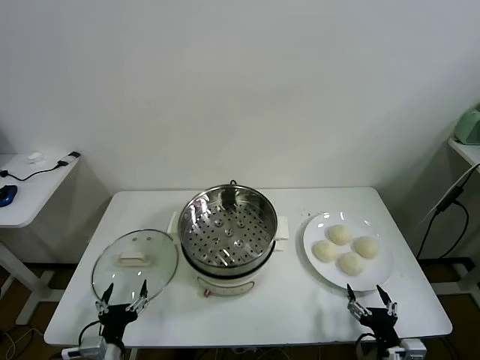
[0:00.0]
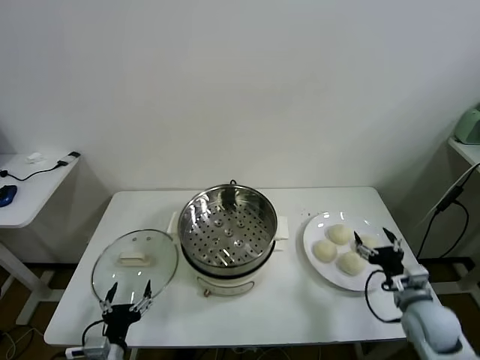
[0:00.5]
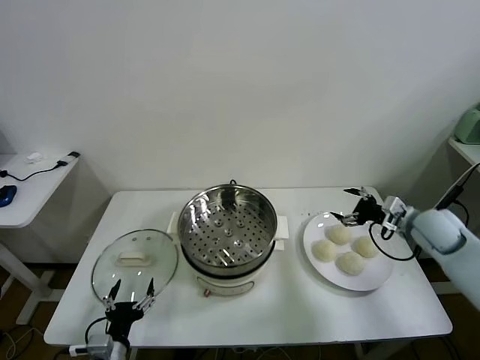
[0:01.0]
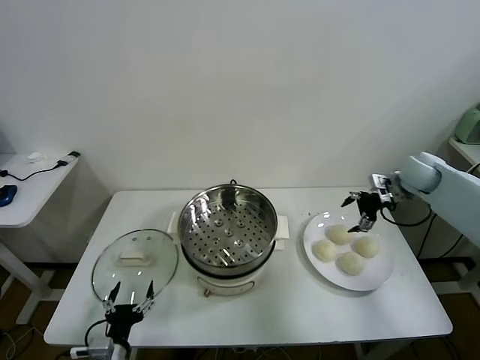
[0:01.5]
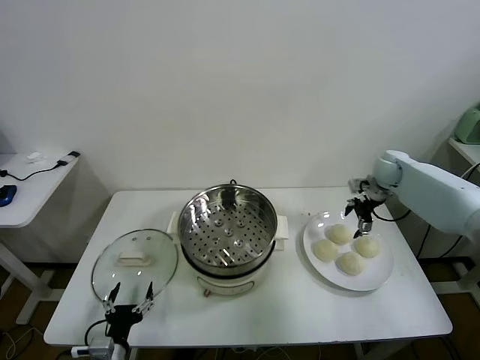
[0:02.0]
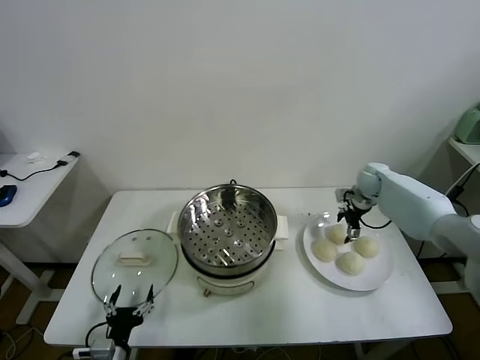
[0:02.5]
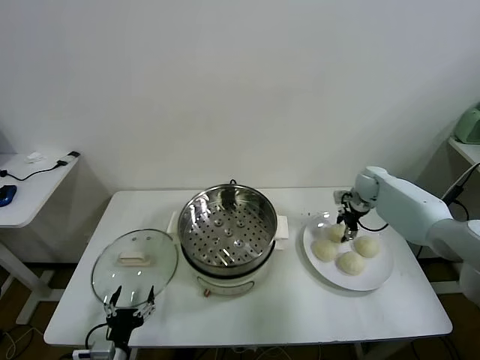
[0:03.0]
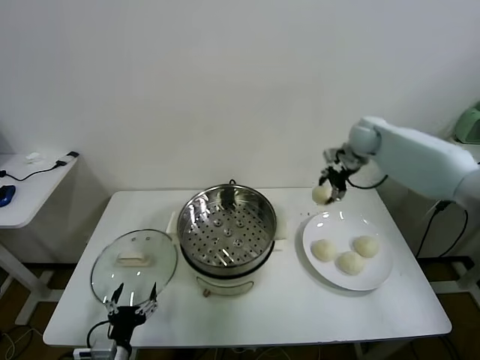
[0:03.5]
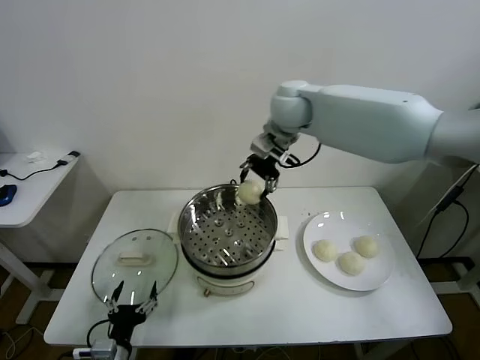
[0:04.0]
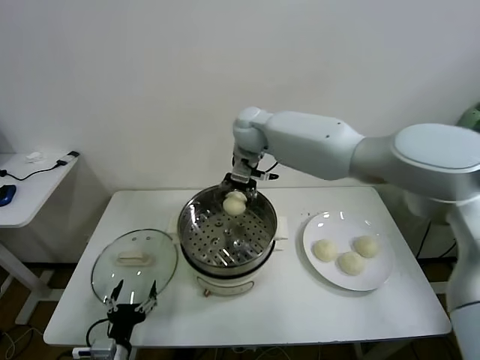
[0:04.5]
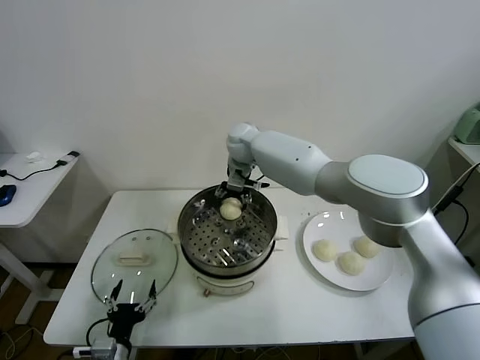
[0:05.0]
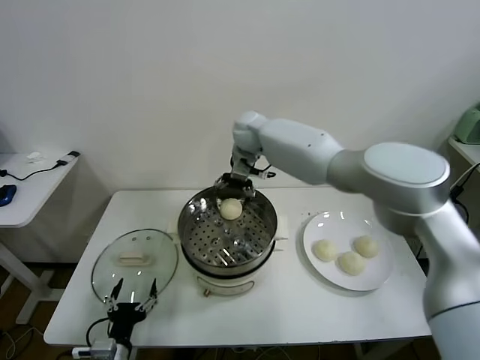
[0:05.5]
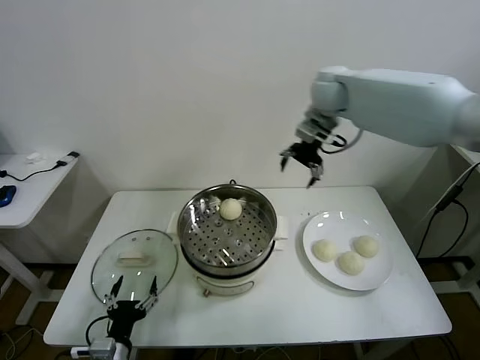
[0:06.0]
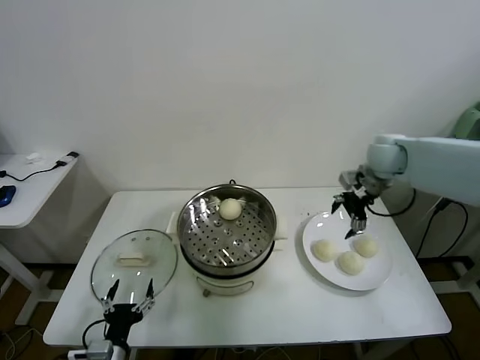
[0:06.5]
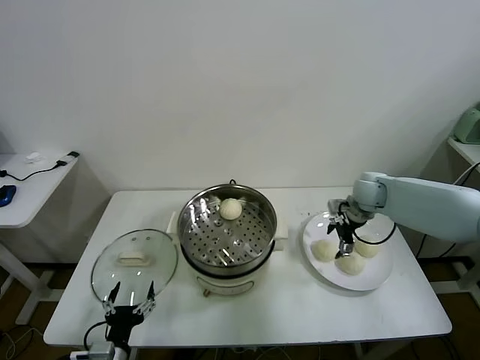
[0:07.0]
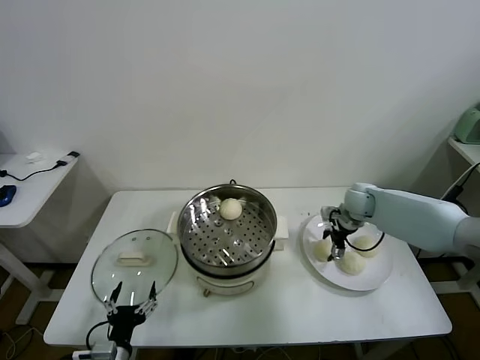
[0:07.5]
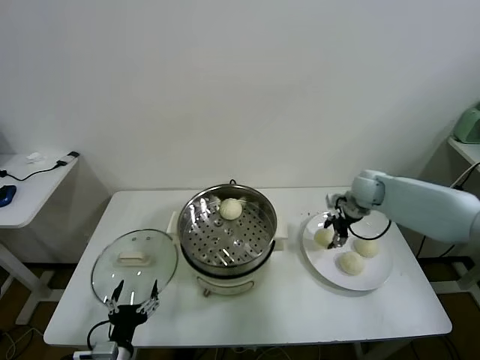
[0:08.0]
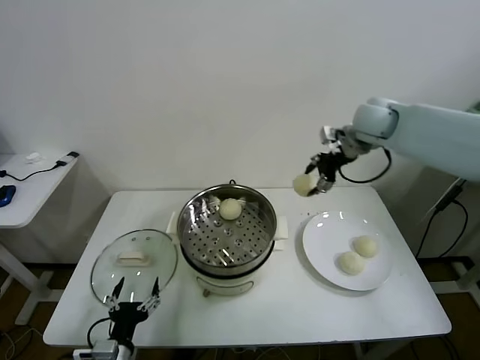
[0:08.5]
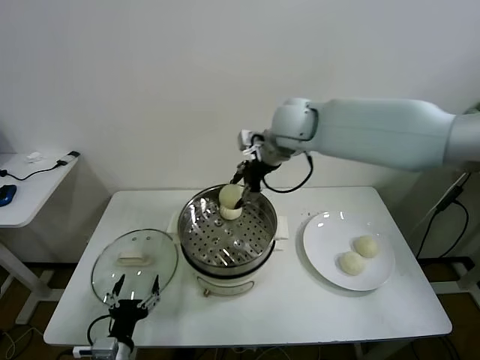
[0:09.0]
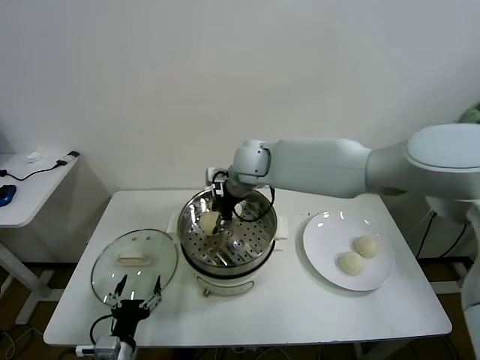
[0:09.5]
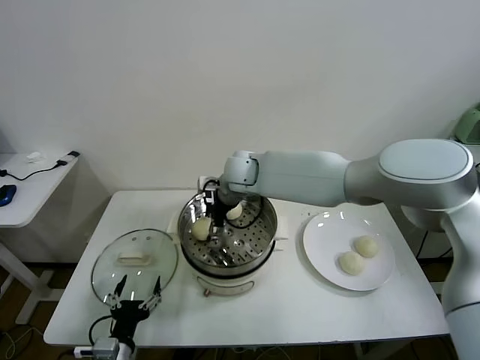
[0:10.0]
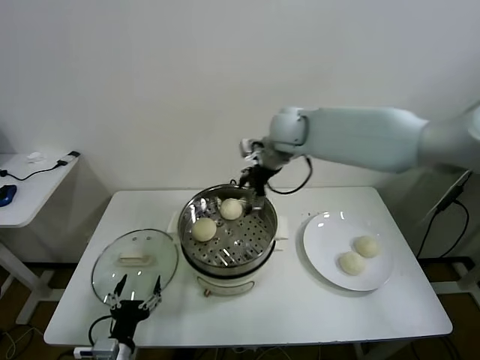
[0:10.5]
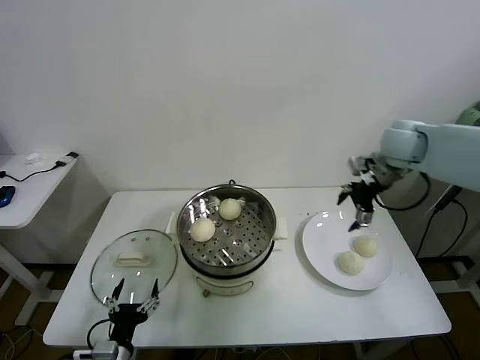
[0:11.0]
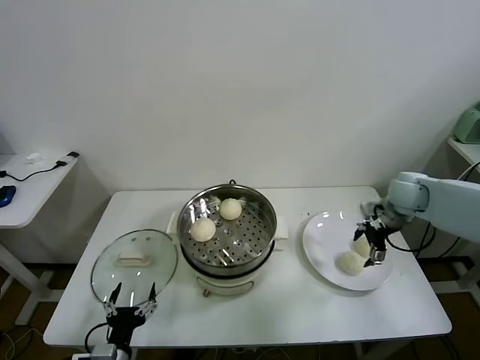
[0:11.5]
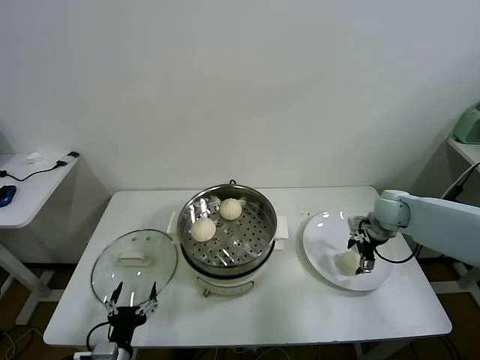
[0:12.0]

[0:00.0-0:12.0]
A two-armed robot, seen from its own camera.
Task of the whole recording: take steamed baozi put them in steamer.
Step, 0:00.0 to 0:02.5: Grasp the baozi in the plate with right gripper.
Step, 0:03.0 to 0:05.0: Place the baozi on the steamer with right gripper.
Step, 0:05.5 to 0:07.5: Grasp the baozi in the plate with right gripper.
Step, 0:08.0 to 0:10.0: Place the baozi on the steamer with right gripper.
0:02.0 to 0:04.0: The right gripper shifts about 40 cm to the left and upward, and closes up.
0:04.0 to 0:06.0: The right gripper is displaced to the right by approximately 15 cm, and opens up.
0:06.0 to 0:08.0: The right gripper goes approximately 20 cm downward and to the right, and closes up.
0:08.0 to 0:10.0: The right gripper heads to the left, covering roughly 35 cm, and opens.
0:10.0 to 0:12.0: The right gripper heads to the right, covering roughly 35 cm.

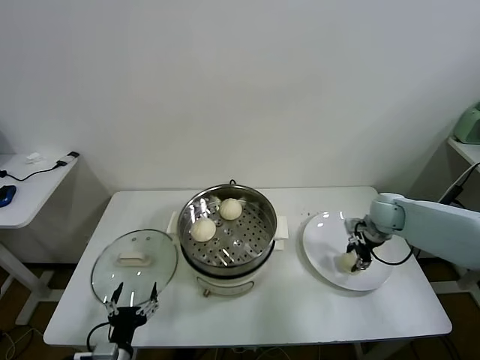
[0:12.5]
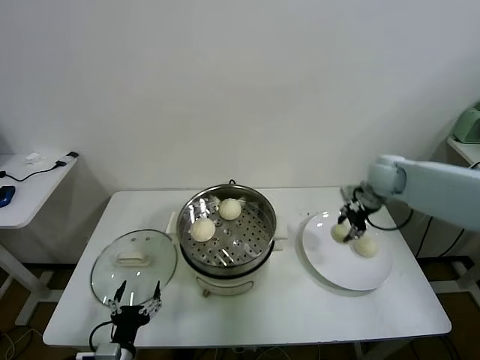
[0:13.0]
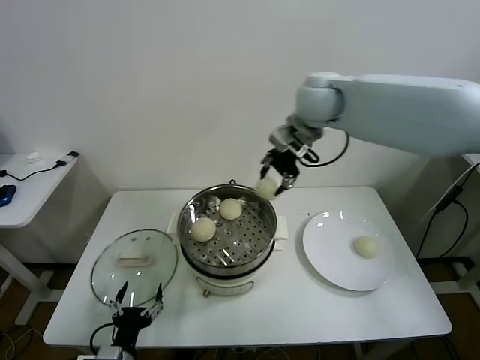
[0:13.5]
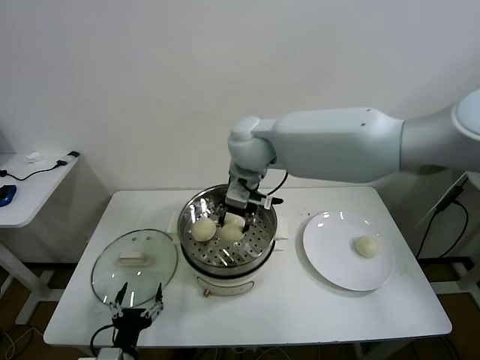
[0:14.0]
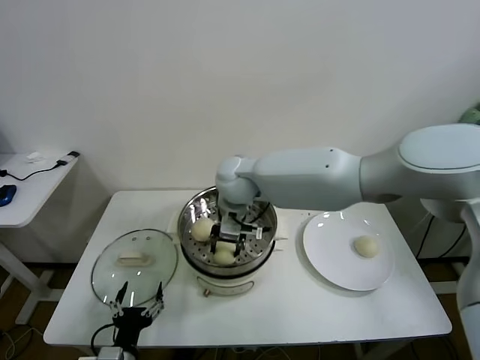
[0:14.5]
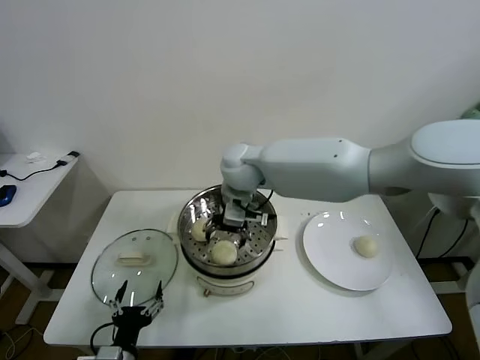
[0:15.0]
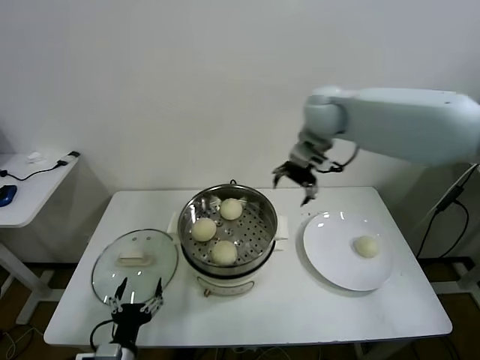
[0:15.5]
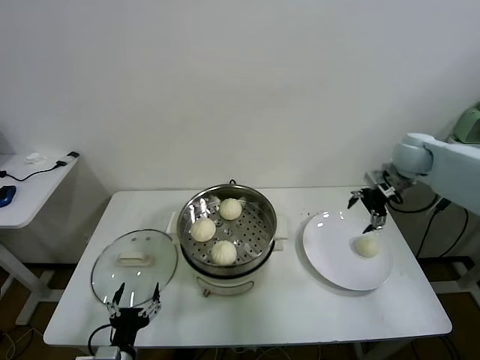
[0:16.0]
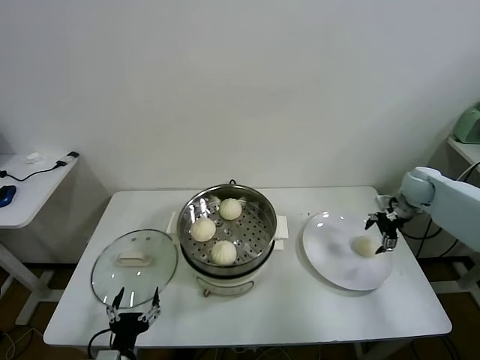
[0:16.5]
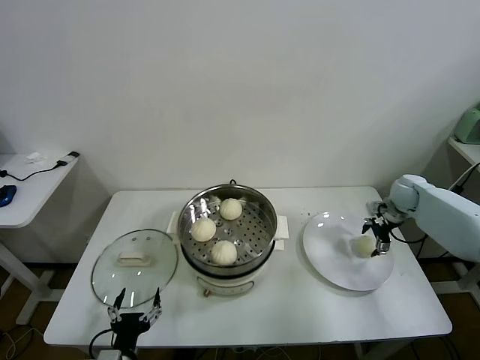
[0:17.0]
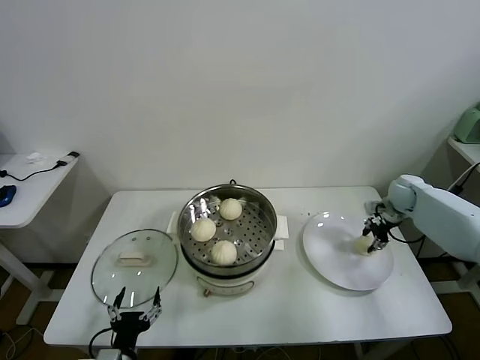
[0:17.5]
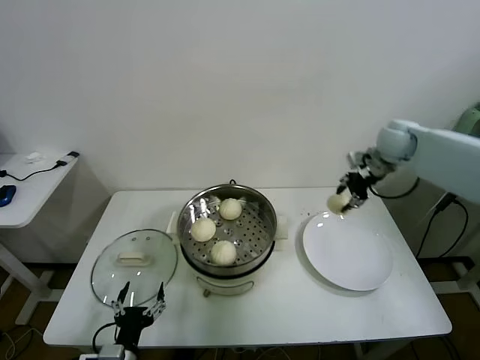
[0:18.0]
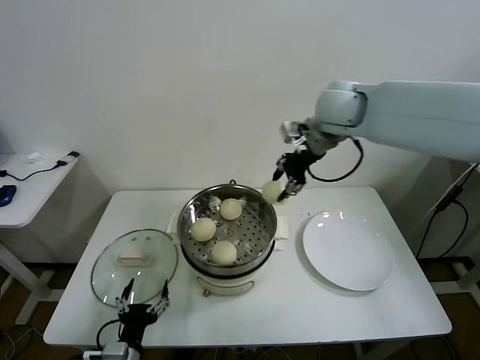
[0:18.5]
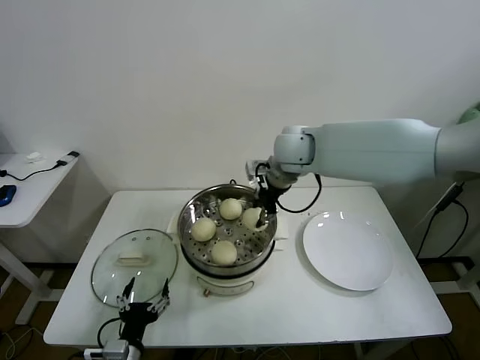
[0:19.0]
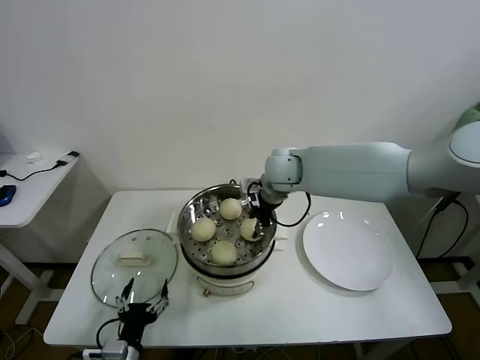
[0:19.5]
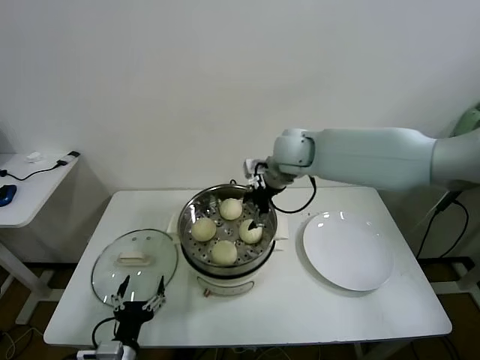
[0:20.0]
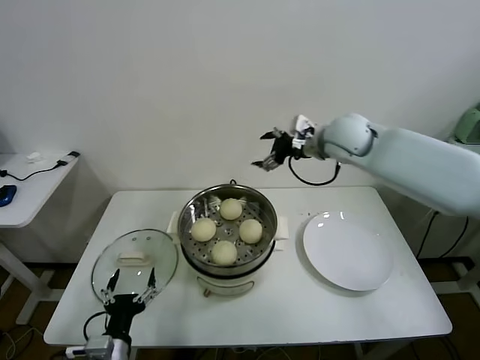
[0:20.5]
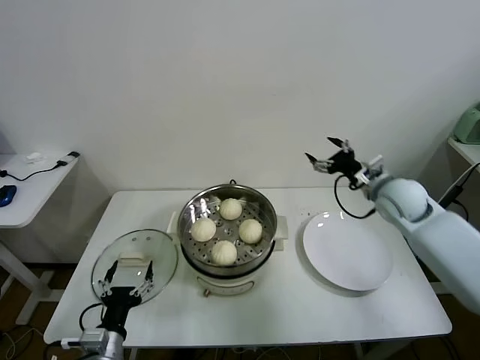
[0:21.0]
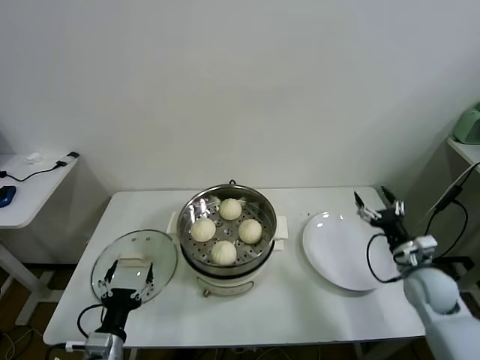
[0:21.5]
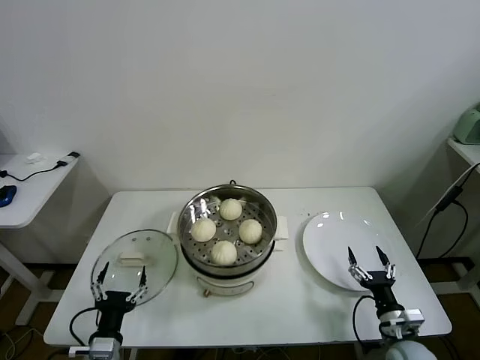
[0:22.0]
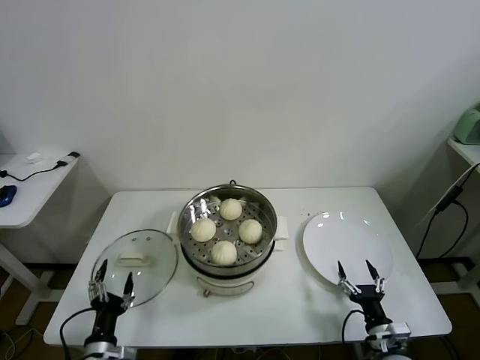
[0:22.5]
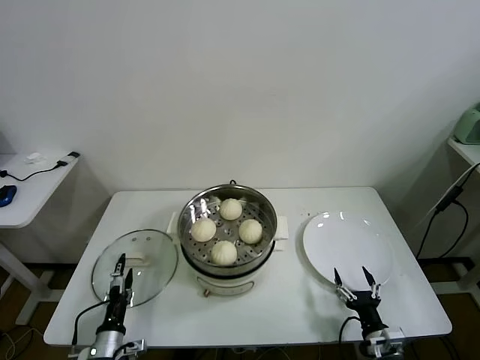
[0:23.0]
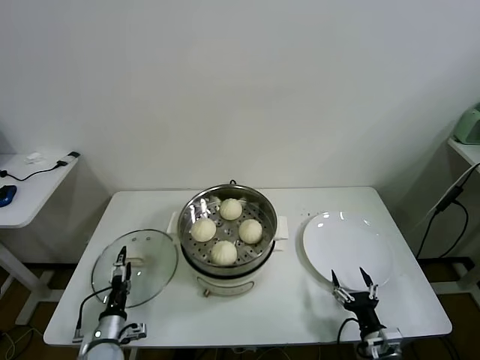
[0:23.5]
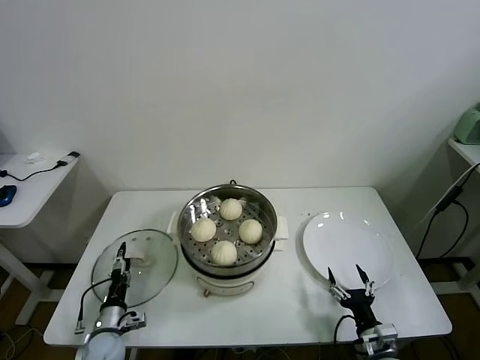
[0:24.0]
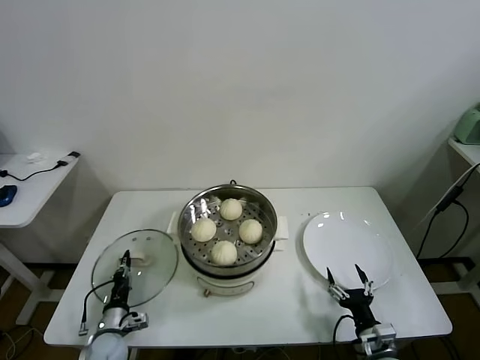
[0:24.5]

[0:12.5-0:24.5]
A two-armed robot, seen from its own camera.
Task of the whole recording: take steamed baozi put them in steamer.
Step, 0:13.0 to 0:14.5: Place the baozi on the steamer with right gripper.
Step, 0:15.0 to 0:17.0: Grasp the baozi in the plate with right gripper.
Step, 0:17.5 to 0:19.5: Place the baozi on the steamer with right gripper.
0:12.5 to 0:14.5: The right gripper shifts roughly 40 cm to the left.
0:14.5 to 0:16.5: The right gripper travels to the right by roughly 50 cm, and opens up.
0:16.5 to 0:18.5: The right gripper is displaced to the left and upward by roughly 35 cm, and closes its fingers.
0:18.5 to 0:20.5: The right gripper moves downward, about 5 cm, and opens up.
0:20.5 to 0:22.5: The left gripper changes place by some 5 cm. The right gripper heads downward and backward, covering roughly 50 cm.
0:22.5 to 0:24.5: The left gripper goes about 15 cm forward and downward, and closes.

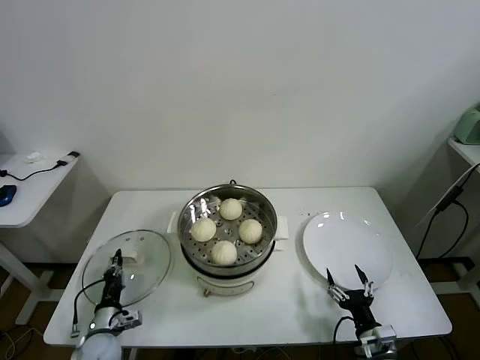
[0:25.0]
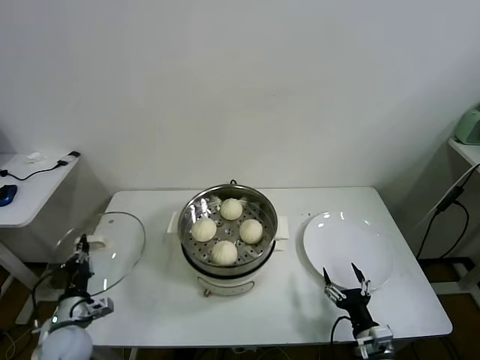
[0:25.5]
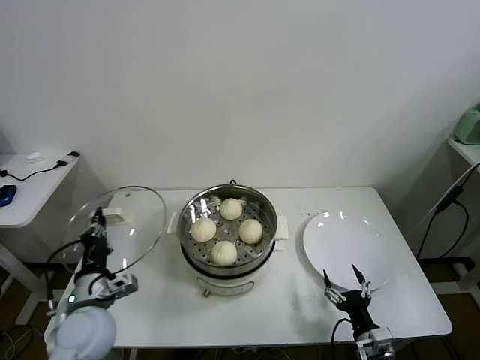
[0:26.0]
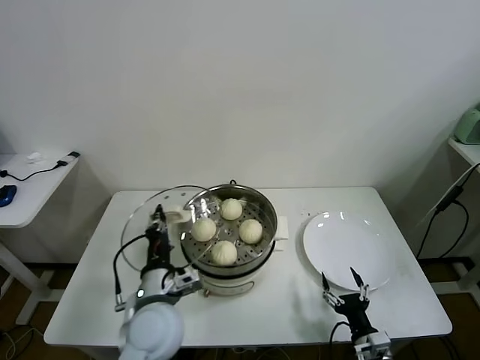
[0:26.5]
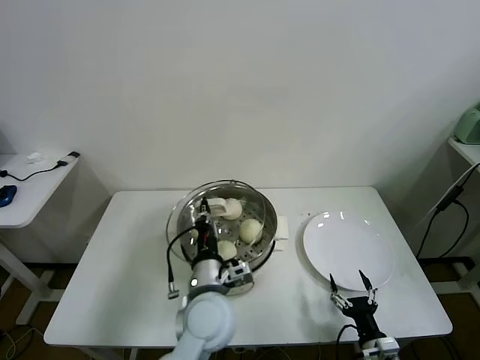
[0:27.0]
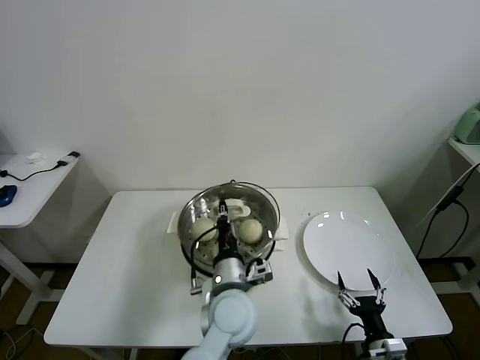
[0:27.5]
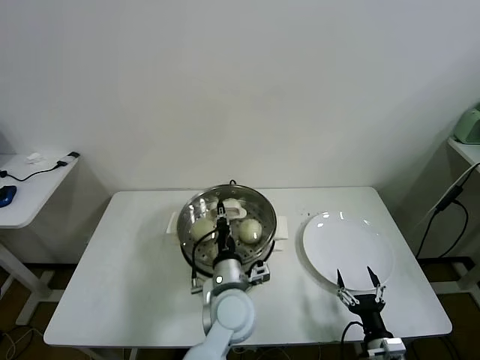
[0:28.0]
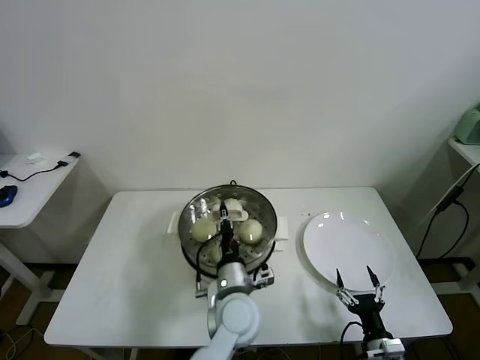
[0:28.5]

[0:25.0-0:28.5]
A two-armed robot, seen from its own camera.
Task of the whole recording: take steamed baozi put them in steamer.
0:25.0 to 0:27.0: The left gripper shifts some 35 cm to the right and upward.
0:27.0 to 0:28.5: The left gripper is displaced to the right by some 5 cm.
